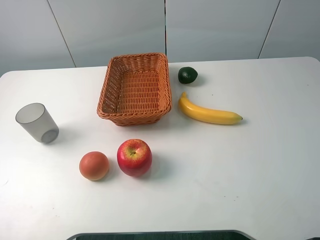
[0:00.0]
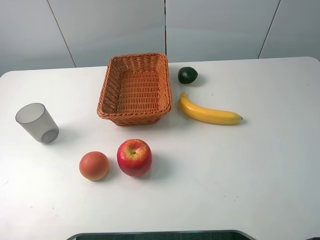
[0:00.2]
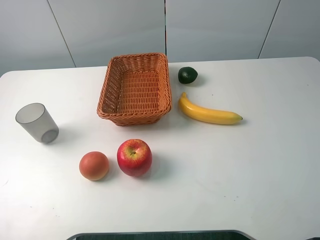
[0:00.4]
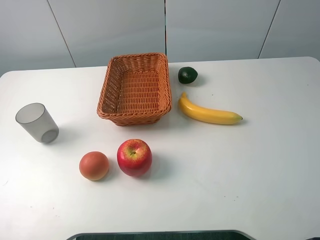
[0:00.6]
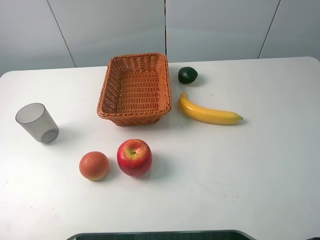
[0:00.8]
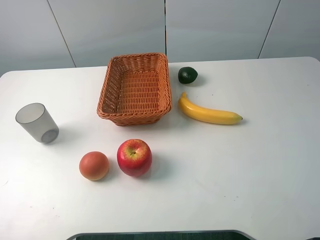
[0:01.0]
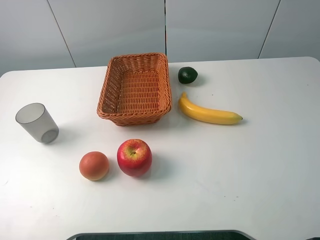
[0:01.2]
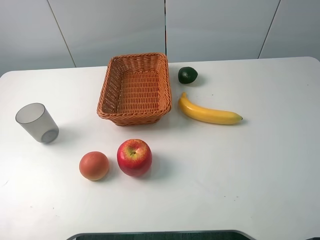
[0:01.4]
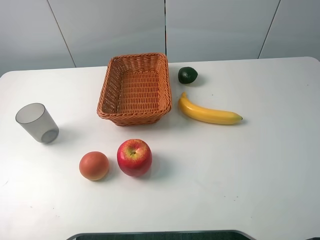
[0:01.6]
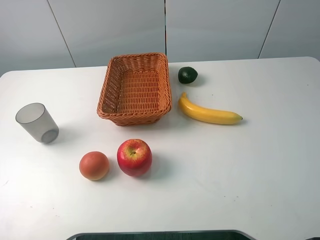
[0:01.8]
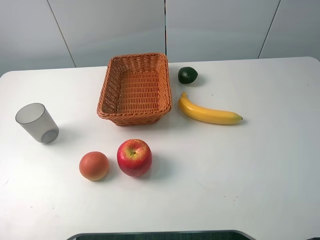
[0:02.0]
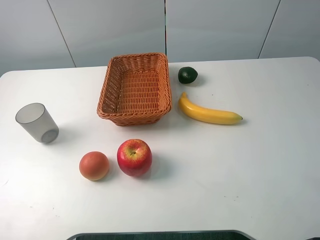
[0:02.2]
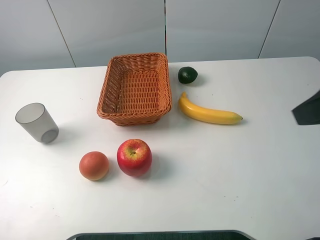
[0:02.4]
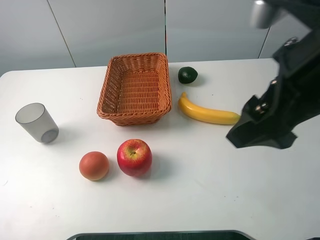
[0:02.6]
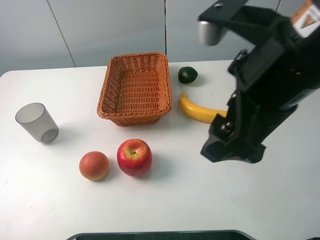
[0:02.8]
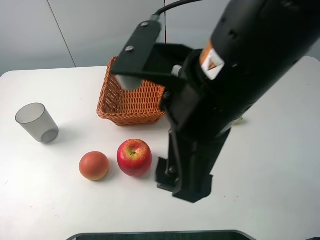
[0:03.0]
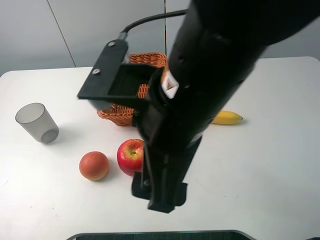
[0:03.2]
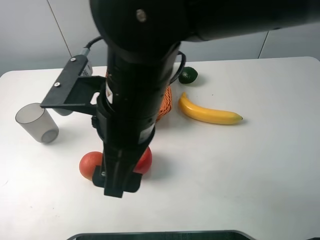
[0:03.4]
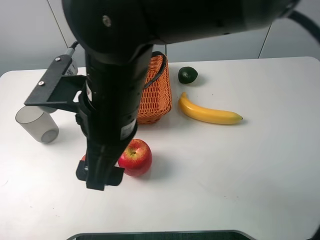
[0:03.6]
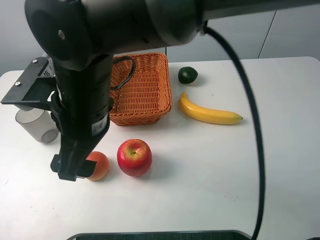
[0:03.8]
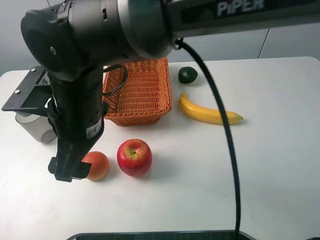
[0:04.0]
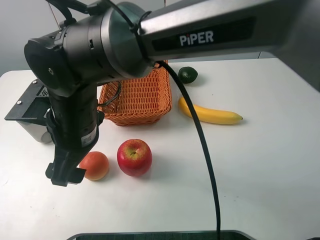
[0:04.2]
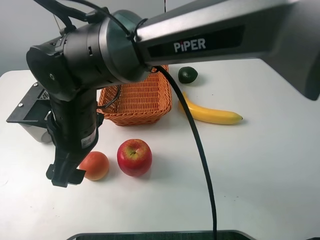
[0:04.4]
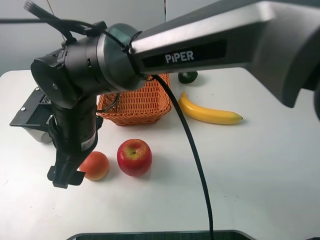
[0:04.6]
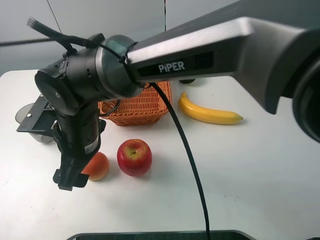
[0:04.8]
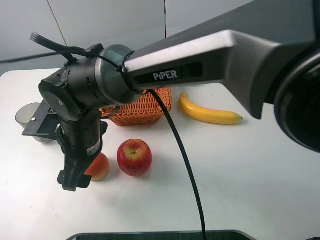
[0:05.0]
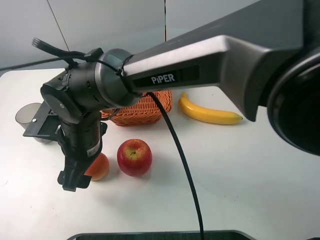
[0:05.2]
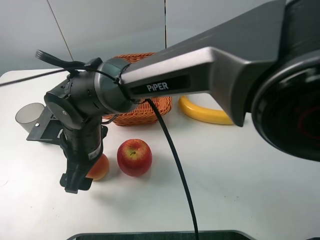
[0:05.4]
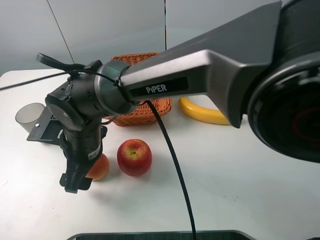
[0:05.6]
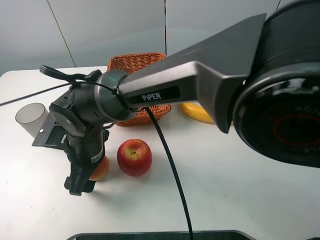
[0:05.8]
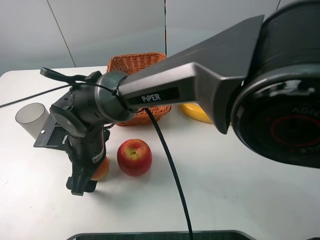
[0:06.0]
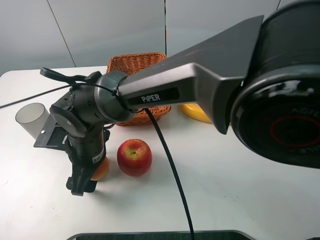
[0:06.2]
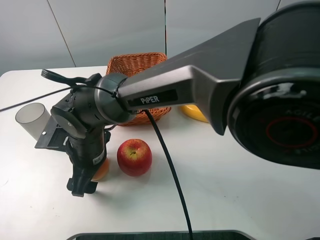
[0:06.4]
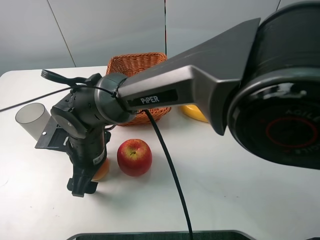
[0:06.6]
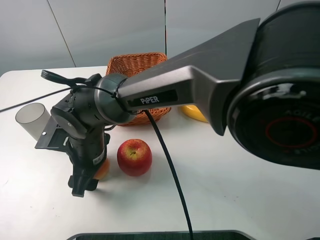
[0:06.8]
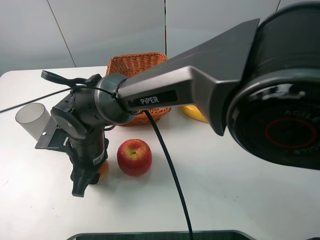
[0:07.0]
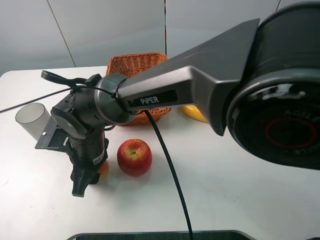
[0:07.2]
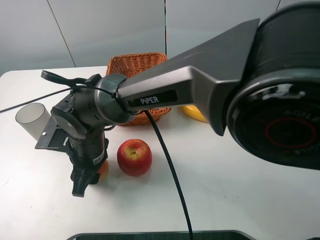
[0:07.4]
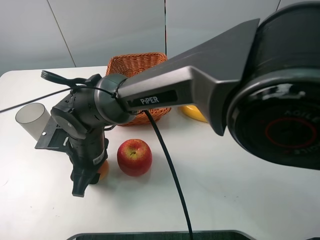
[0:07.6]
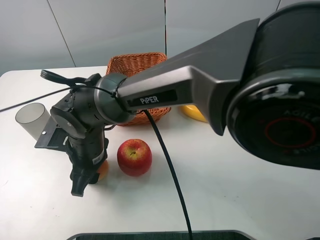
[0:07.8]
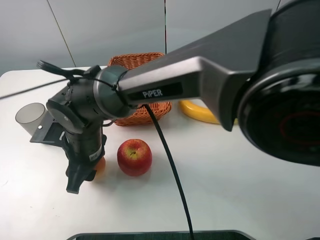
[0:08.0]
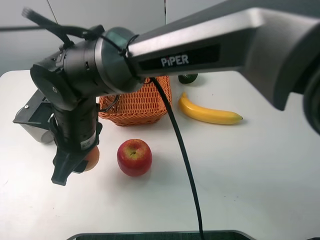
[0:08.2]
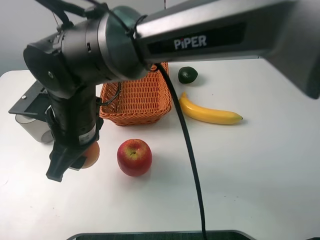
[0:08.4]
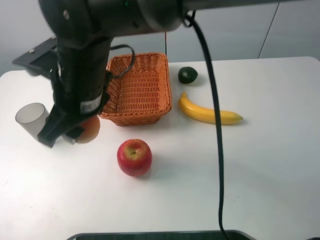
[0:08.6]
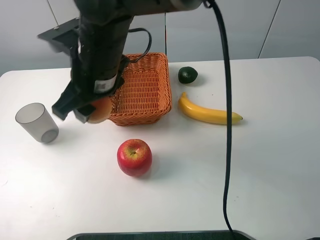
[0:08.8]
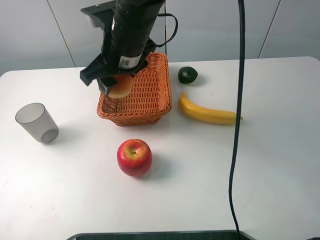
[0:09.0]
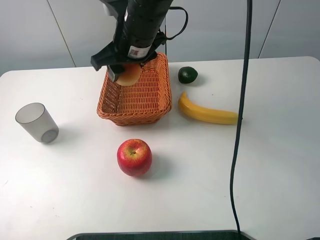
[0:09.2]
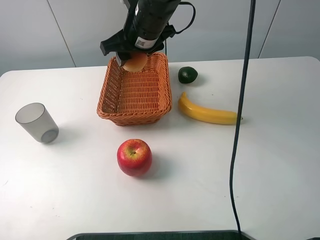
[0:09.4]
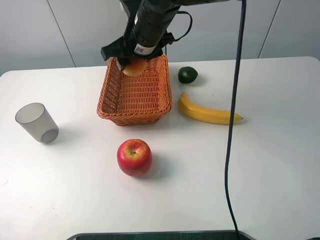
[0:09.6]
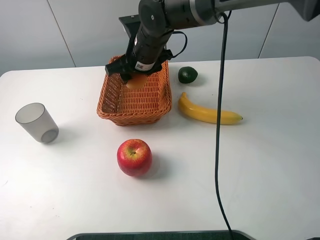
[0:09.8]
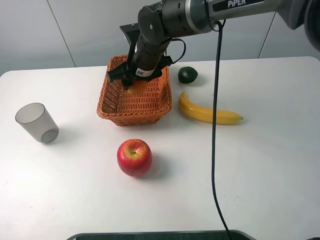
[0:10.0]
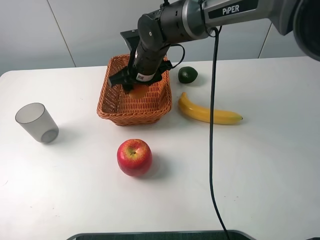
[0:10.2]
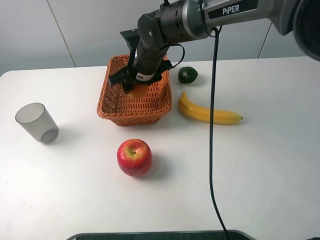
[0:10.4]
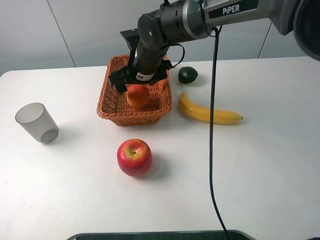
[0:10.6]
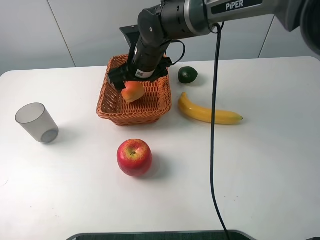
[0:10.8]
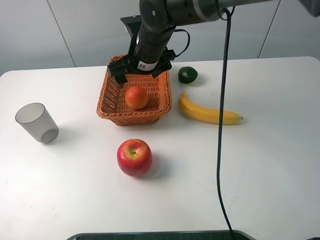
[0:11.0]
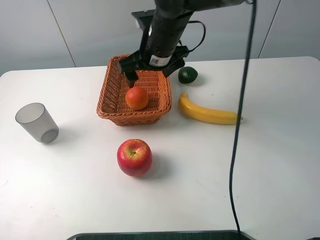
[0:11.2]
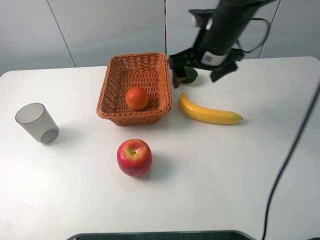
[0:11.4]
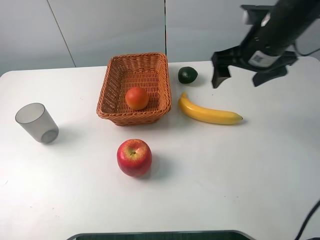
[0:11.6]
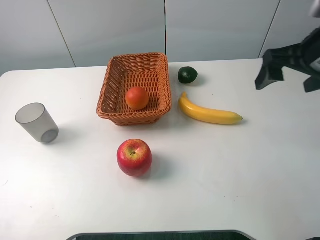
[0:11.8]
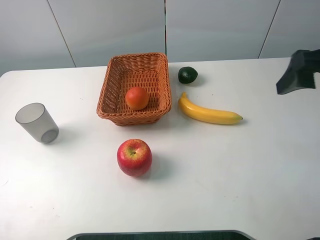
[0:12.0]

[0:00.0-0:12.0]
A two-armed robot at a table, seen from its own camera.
0.0 to 1.6 s: Neither gripper changes place.
1.6 to 3.0 s: The right gripper shifts about 25 cm to the left and forward.
3.0 to 4.4 s: The right gripper heads to the left and downward, covering about 20 cm.
4.4 to 6.0 s: The right gripper goes about 10 cm downward.
6.0 to 7.6 s: The right gripper closes its fingers.
7.6 to 9.0 s: The right gripper heads upward, forward and to the right, covering some 20 cm.
9.0 to 10.4 s: The right gripper heads downward and forward, covering about 10 cm.
10.4 to 12.0 s: The right gripper travels to the right, backward and upward by about 40 cm, and opens.

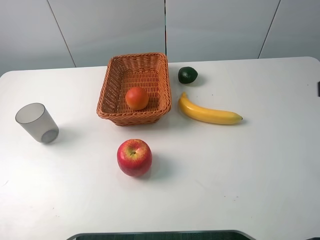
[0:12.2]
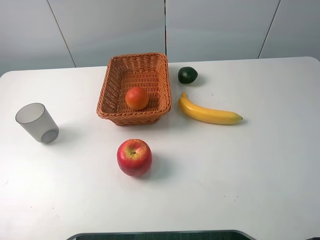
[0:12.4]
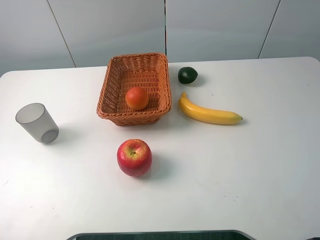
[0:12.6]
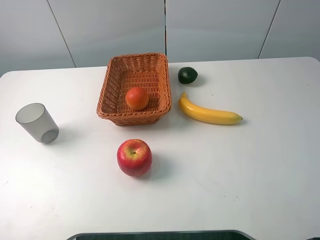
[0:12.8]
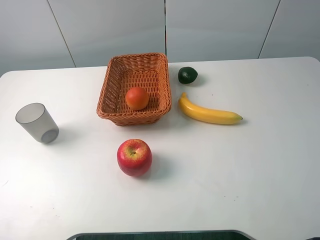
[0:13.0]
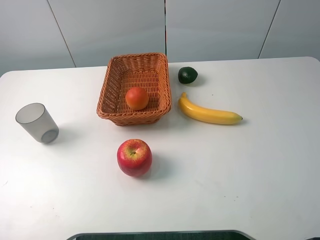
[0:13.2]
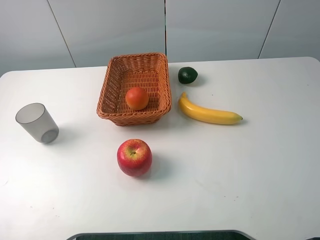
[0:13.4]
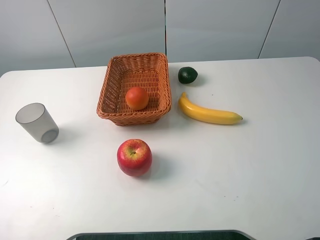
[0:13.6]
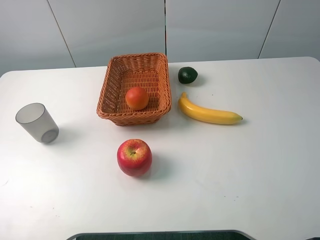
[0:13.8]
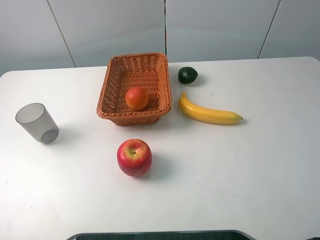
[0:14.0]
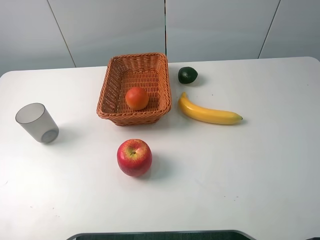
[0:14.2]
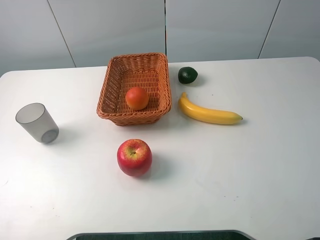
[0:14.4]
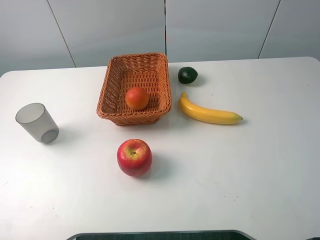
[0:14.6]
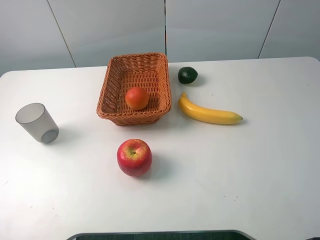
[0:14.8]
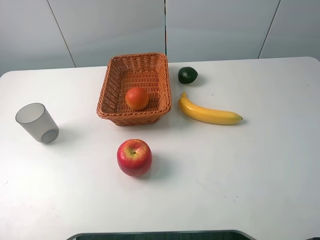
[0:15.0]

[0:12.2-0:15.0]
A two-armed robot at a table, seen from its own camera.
13.6 to 15.0 s: Neither gripper changes place.

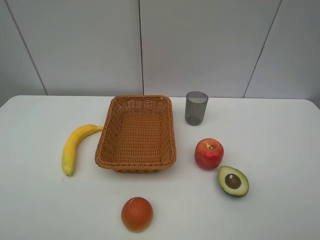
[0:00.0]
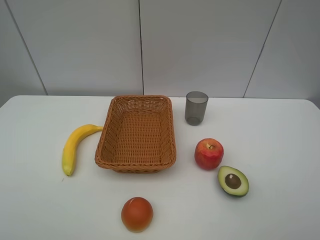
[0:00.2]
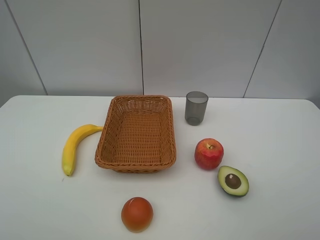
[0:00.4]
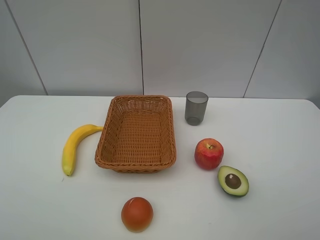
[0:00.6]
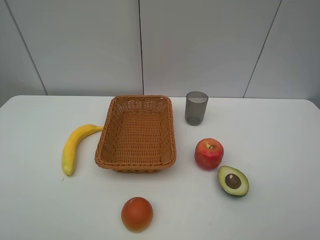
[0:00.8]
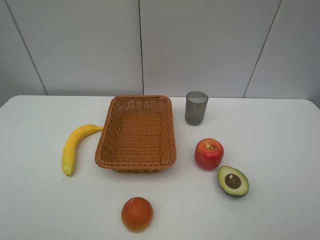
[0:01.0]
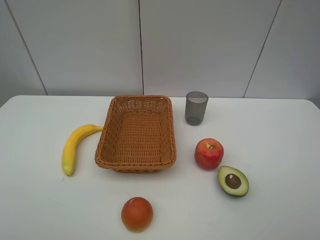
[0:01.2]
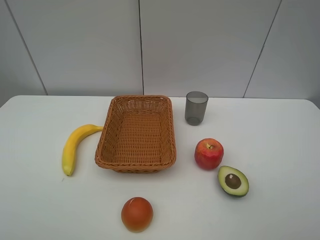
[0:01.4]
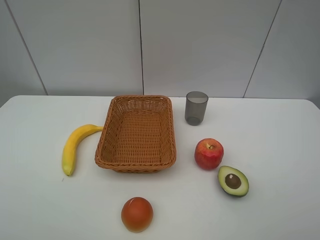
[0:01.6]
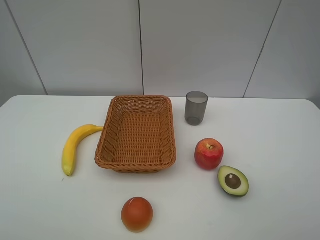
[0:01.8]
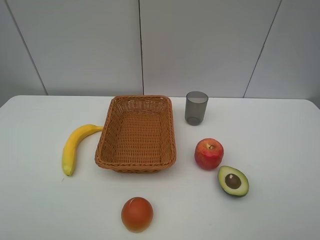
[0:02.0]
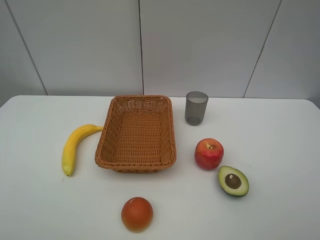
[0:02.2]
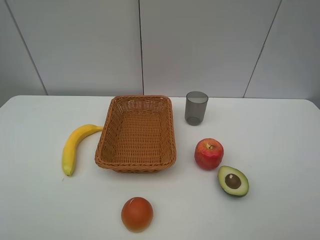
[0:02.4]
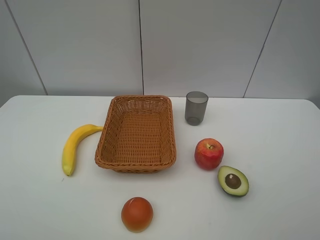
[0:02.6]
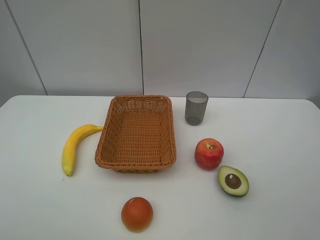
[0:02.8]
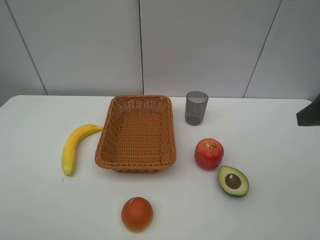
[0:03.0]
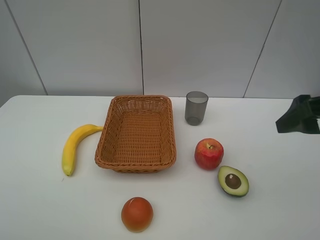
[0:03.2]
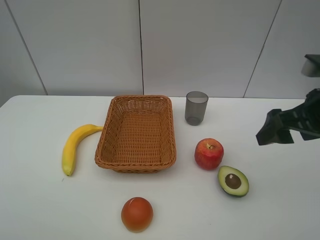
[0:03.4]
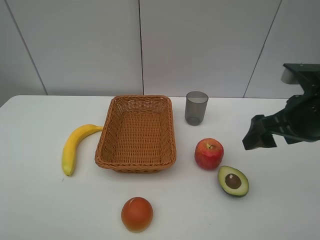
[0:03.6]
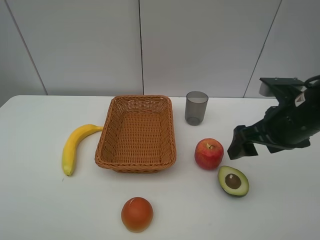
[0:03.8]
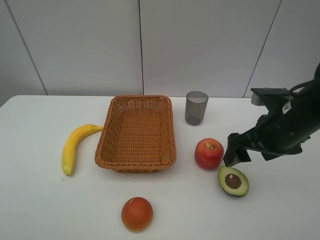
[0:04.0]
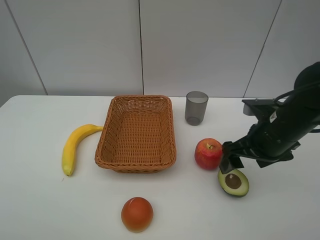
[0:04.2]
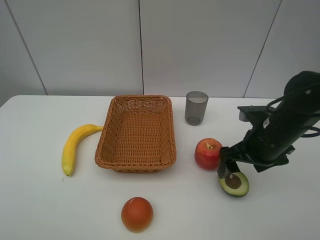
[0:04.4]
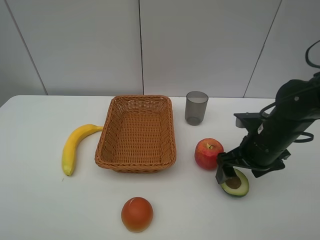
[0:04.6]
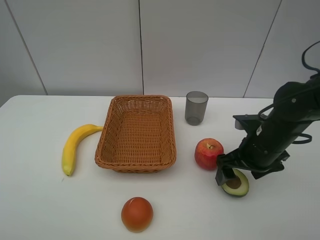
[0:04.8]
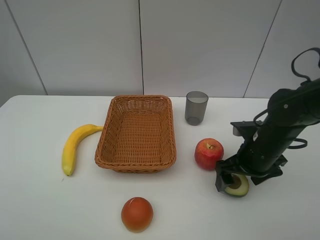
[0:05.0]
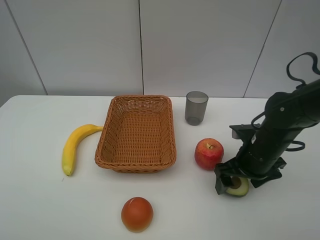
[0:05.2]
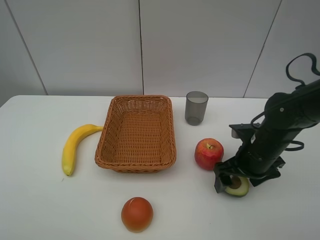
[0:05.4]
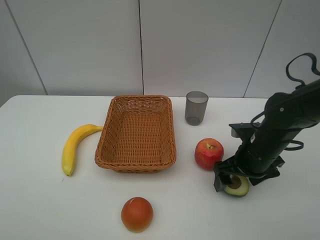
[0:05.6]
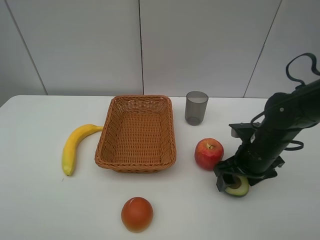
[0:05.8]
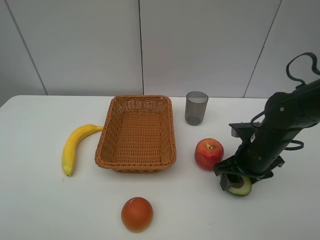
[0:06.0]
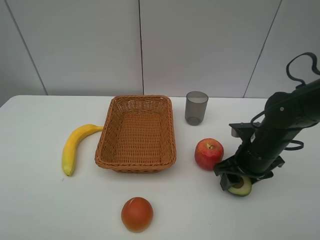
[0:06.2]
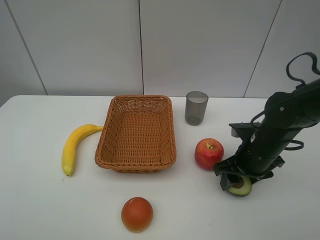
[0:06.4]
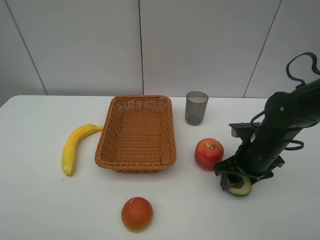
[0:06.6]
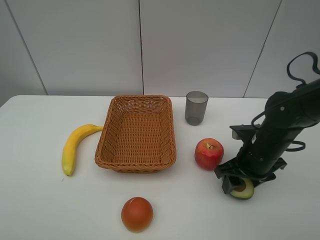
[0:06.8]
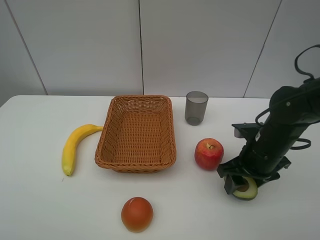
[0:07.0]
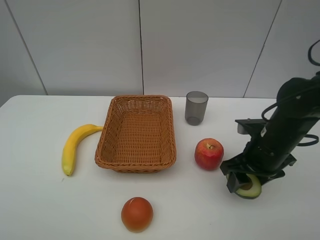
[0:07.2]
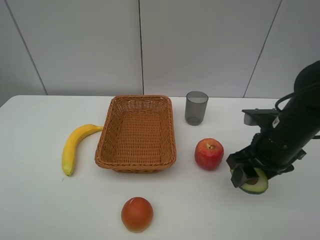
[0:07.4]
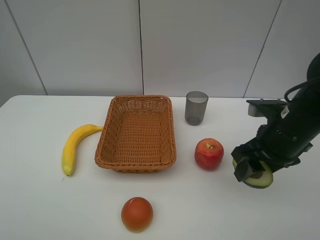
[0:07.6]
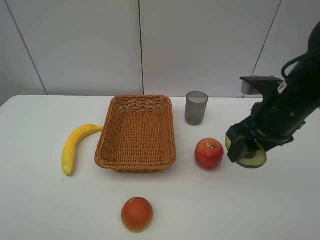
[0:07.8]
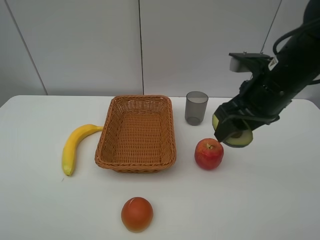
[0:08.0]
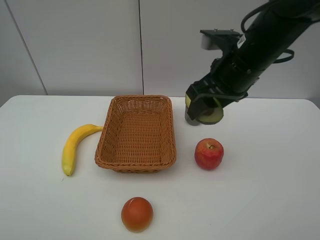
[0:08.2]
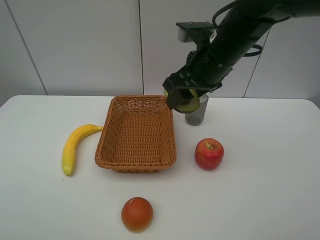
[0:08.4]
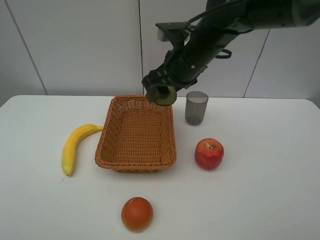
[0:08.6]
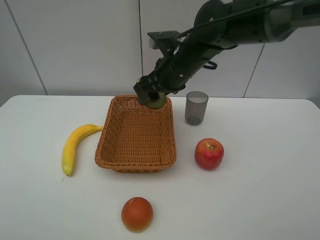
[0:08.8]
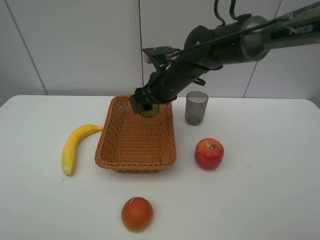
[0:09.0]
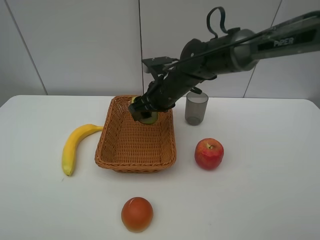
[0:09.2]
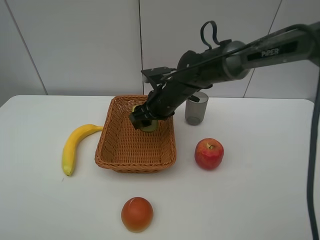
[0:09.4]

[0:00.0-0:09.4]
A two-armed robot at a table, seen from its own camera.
0.0 to 1.6 s: Both grippers stay about where they are.
1.6 to 3.2 s: The right gripper goes some 20 cm forward.
3.2 to 4.8 s: The right gripper moves downward, forward and to the left, approximately 20 cm.
4.8 to 6.2 s: The right gripper closes its fingers.
6.2 to 7.8 s: The right gripper travels upward by about 10 cm.
7.8 to 9.4 s: The right gripper heads to the left, forward and downward, covering roughly 25 cm.
